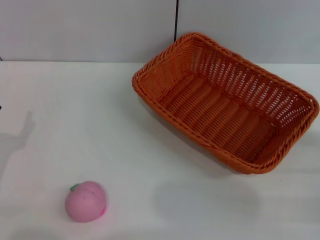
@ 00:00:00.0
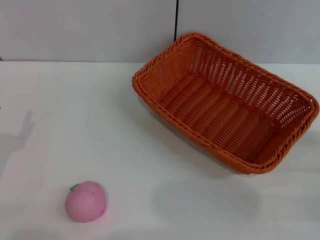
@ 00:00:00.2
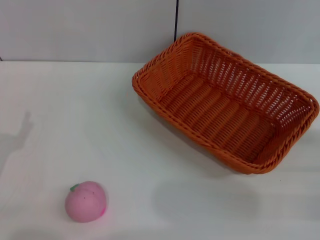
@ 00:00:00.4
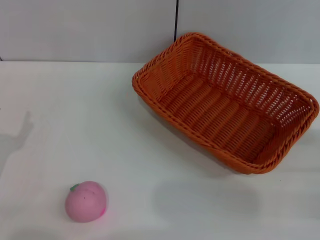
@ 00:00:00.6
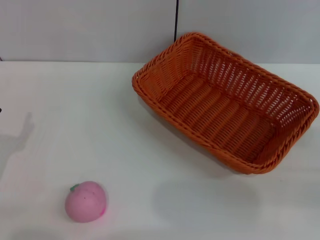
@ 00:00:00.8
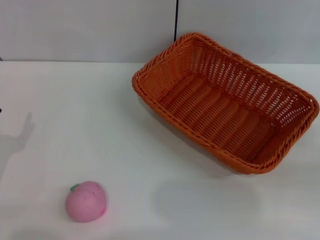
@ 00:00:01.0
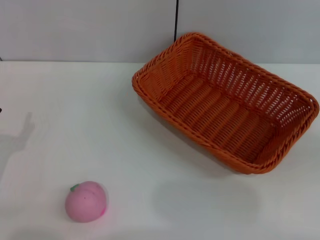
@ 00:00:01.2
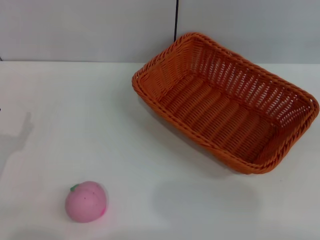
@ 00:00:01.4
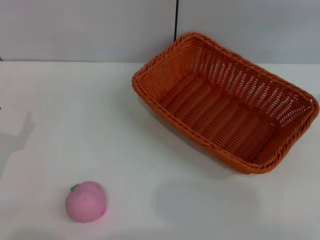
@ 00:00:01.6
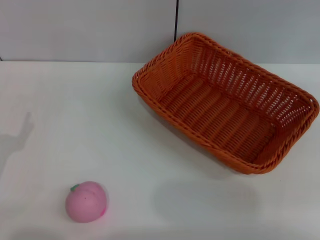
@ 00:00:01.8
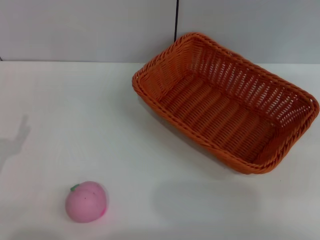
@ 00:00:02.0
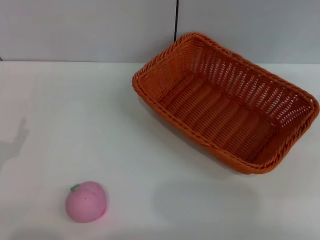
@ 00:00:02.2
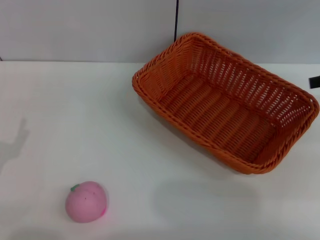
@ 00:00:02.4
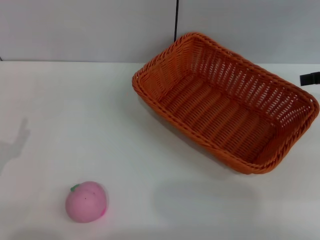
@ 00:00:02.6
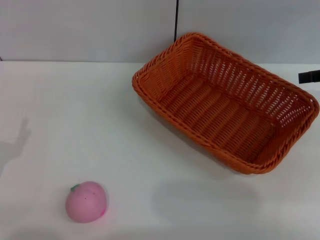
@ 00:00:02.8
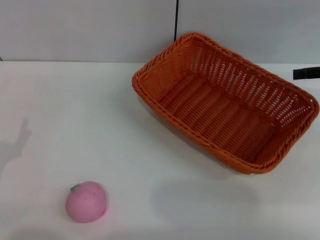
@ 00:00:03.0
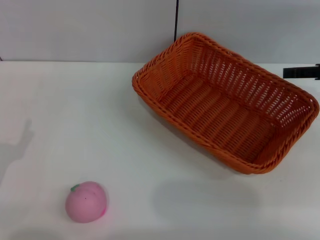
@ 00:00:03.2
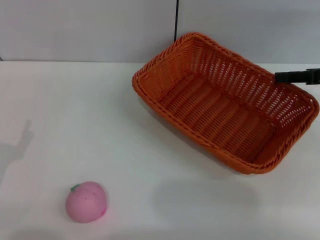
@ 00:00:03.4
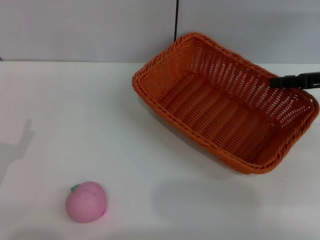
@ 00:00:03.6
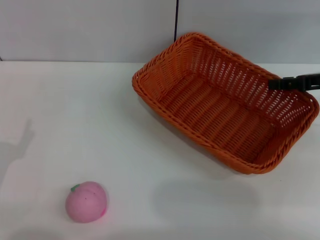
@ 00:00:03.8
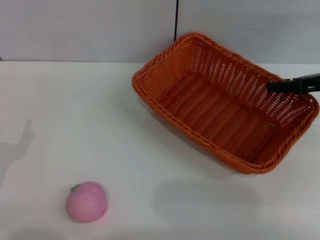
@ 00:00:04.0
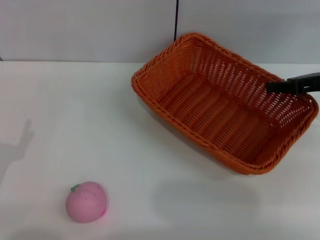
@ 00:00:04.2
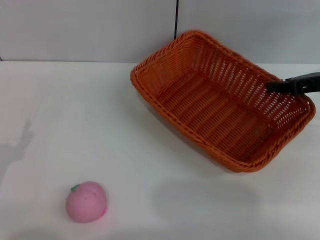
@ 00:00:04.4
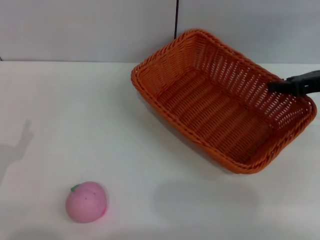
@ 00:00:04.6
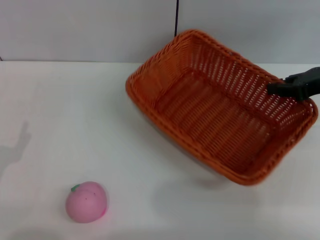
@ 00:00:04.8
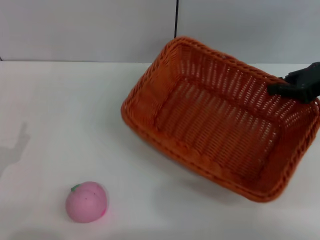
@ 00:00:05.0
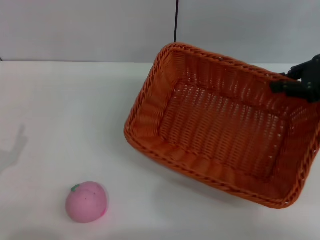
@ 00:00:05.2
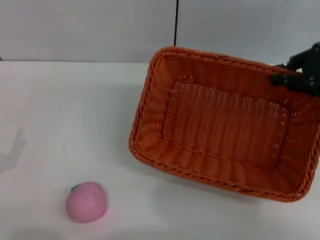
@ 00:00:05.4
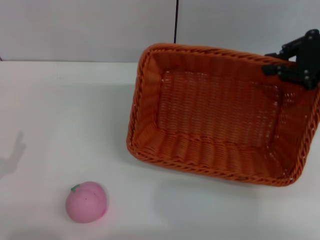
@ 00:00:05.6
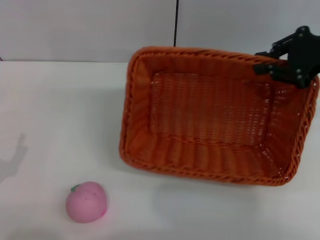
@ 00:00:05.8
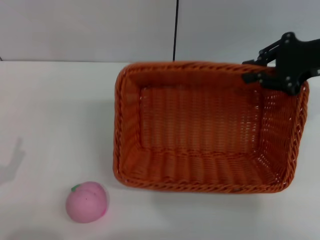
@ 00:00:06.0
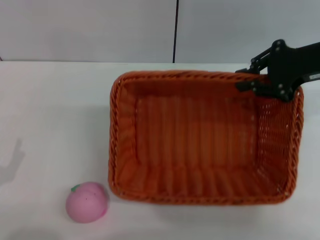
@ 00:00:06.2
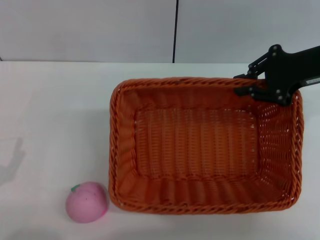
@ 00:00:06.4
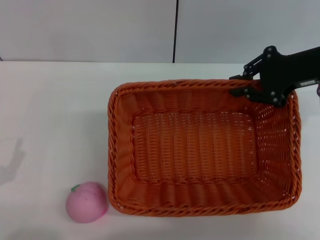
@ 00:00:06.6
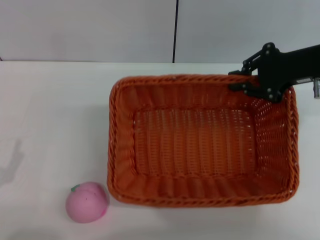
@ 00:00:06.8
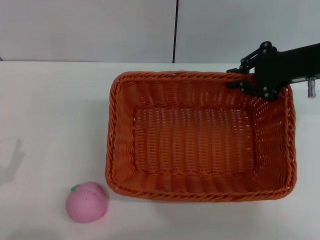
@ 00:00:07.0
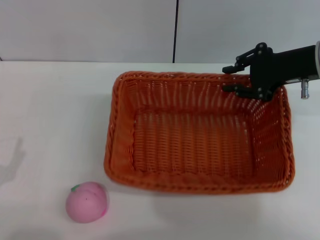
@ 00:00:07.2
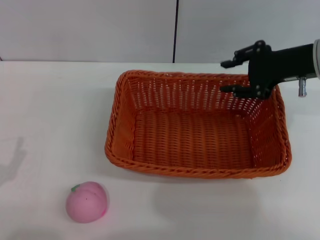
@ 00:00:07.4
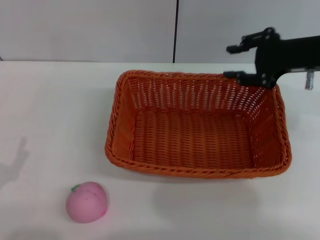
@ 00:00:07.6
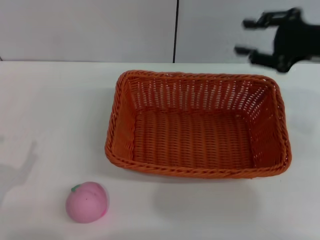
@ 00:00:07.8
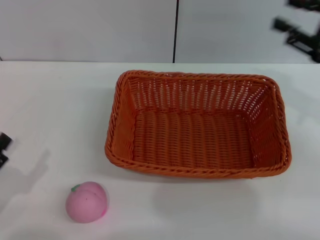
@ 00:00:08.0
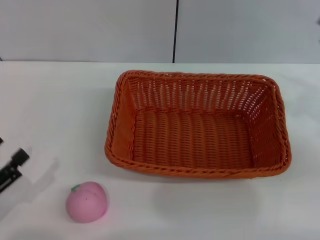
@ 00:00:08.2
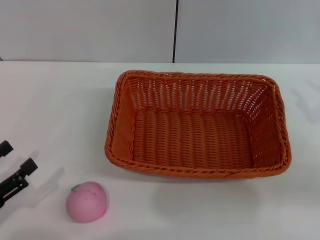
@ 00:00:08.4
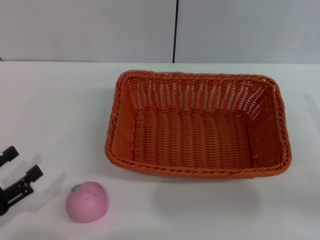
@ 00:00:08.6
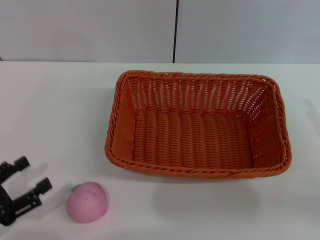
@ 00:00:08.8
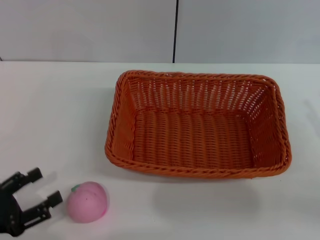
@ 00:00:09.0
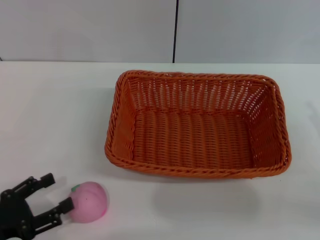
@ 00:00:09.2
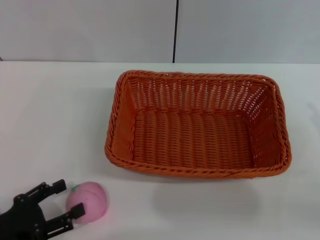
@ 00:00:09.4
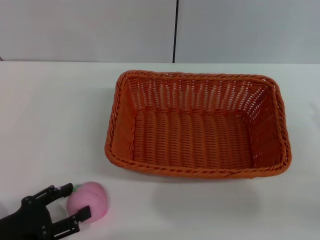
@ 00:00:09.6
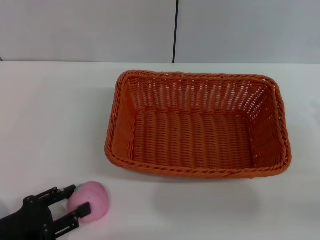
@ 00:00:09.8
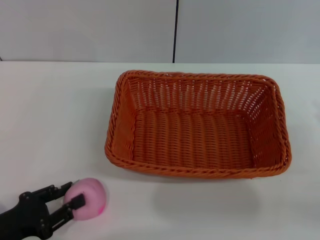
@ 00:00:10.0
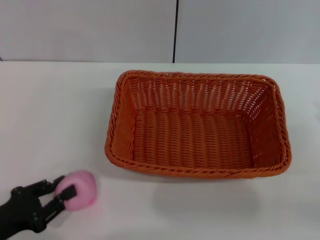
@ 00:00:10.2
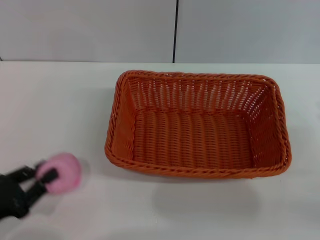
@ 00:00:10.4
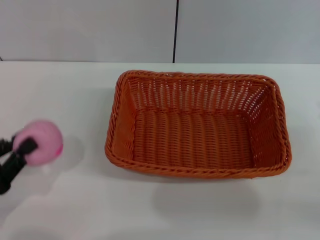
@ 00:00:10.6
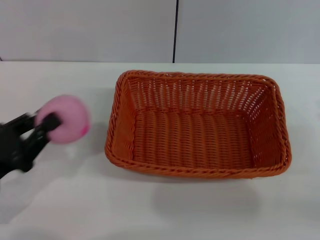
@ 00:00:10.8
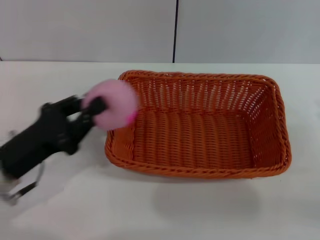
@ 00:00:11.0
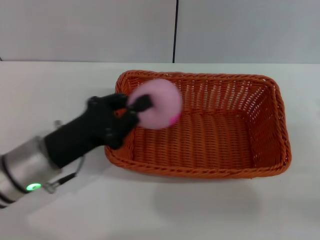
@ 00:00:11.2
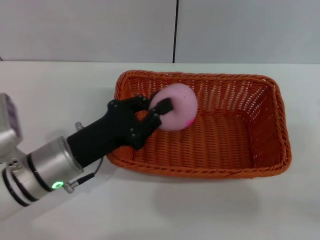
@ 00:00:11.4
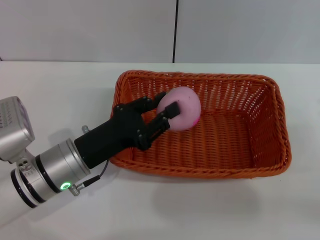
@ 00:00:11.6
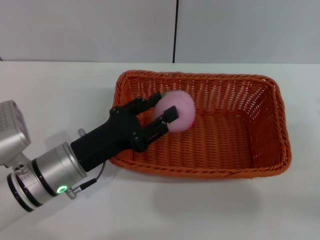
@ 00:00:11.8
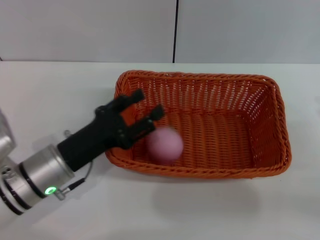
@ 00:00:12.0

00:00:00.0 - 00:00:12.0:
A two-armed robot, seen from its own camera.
Step, 00:00:00.0 - 00:00:05.2: Pick up the light basket with the right gripper.
Step, 00:00:05.4 - 00:00:07.6: Place the light basket in the center of view with the right gripper.
Step, 00:00:08.0 - 00:00:10.8: Pick up the peach with the left gripper.
00:00:03.0 - 00:00:04.4: The right gripper shifts by approximately 5 cm, and closes up.
00:00:04.4 - 00:00:06.0: The right gripper is displaced upward by some 5 cm.
00:00:06.0 - 00:00:07.6: The right gripper opens.
00:00:07.6 - 00:00:09.0: The right gripper shifts roughly 20 cm backward, to the right and downward.
00:00:09.0 - 00:00:10.4: The left gripper closes up.
00:00:10.4 - 00:00:12.0: The left gripper shifts some 15 cm to the right and forward.

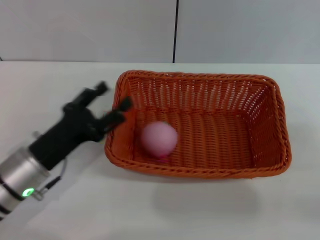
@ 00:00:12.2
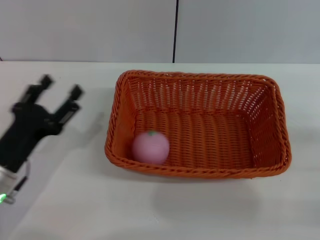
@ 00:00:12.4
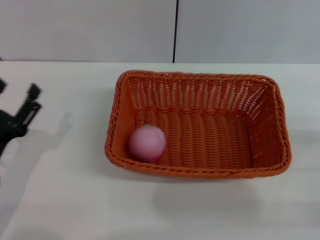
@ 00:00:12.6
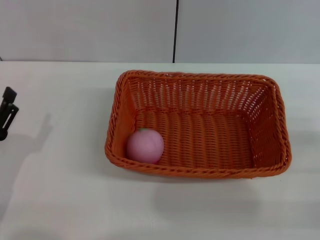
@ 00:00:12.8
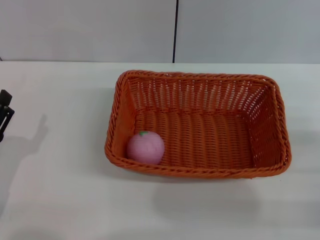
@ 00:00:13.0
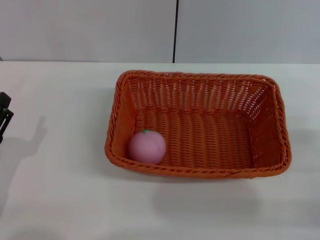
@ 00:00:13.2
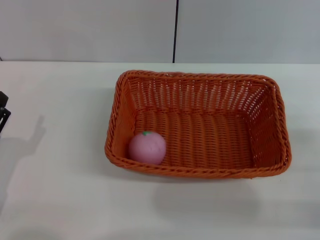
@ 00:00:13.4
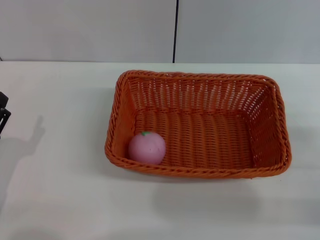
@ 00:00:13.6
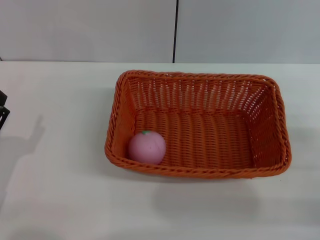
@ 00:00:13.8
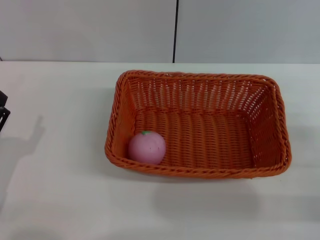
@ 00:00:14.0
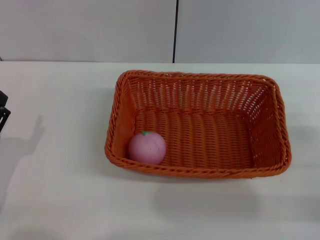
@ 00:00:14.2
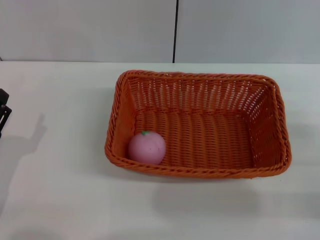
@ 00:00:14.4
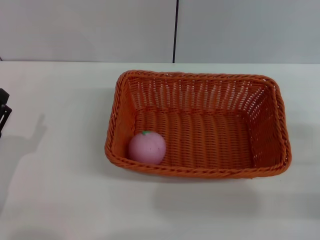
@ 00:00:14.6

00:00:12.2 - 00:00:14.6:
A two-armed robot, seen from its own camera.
00:00:12.2 - 00:00:13.4: The left gripper moves to the left and backward, some 10 cm.
00:00:13.4 - 00:00:14.6: Neither gripper changes place.
